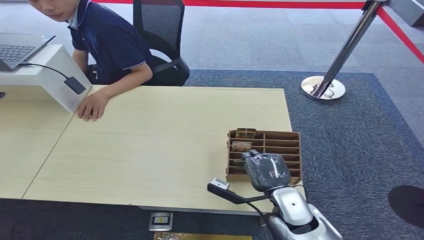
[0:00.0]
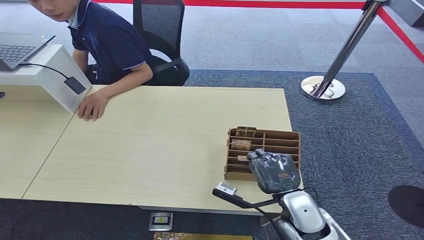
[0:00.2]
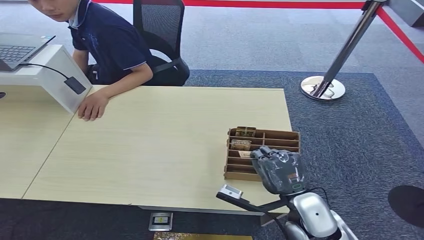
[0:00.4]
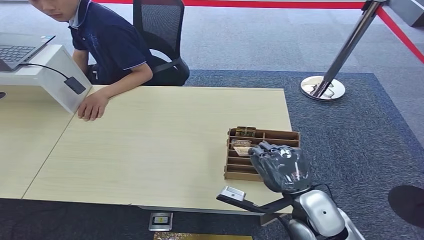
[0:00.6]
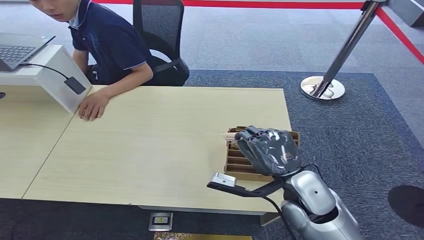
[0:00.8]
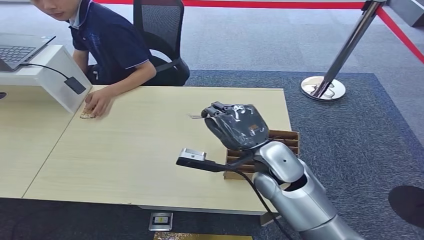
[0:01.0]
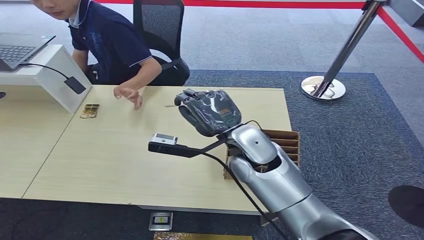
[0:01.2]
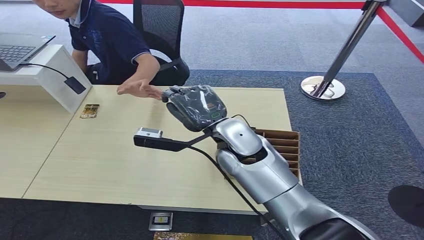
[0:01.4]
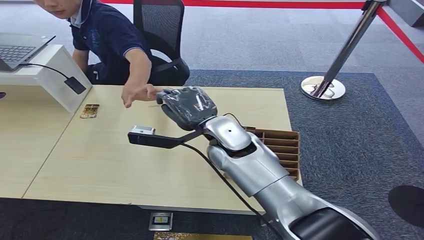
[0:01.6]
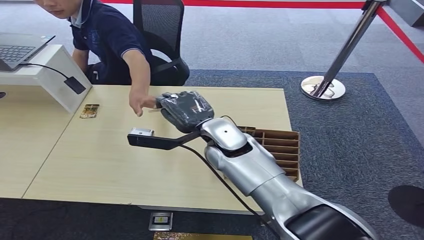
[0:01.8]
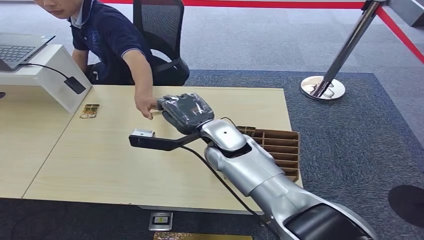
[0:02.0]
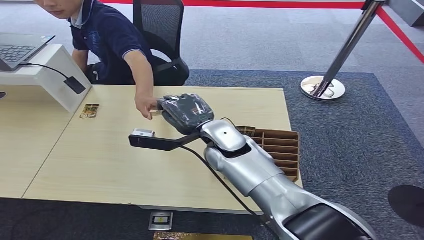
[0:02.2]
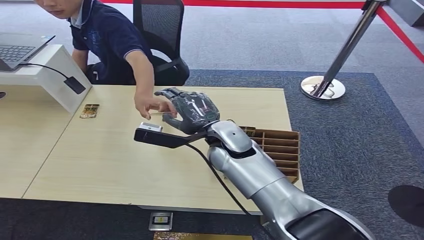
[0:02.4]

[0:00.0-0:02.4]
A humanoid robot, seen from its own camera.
Step, 0:00.8 to 0:02.4: Hand the key card to the target.
0:00.0 to 0:01.2: The right hand is displaced upward, forward and to the left by about 20 cm.
0:01.2 to 0:02.4: The hands stay close to where they were, moving slightly.
